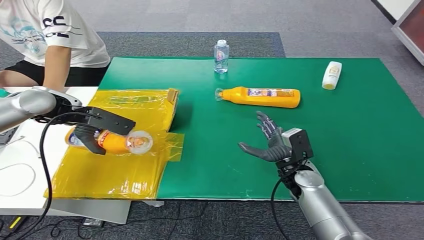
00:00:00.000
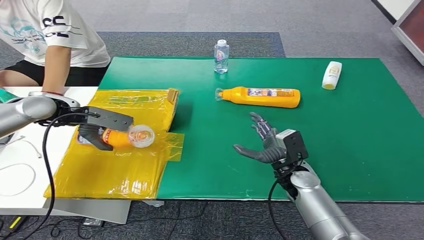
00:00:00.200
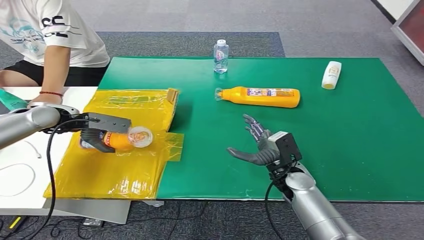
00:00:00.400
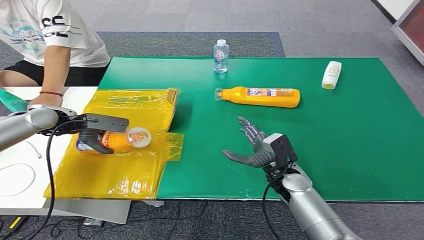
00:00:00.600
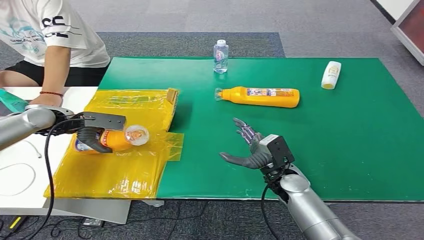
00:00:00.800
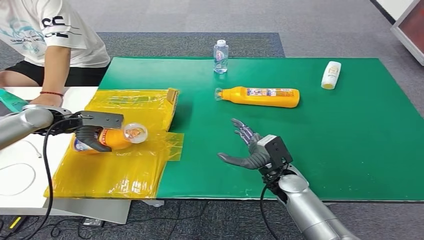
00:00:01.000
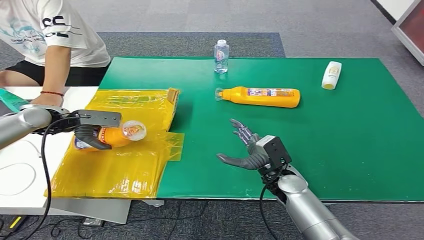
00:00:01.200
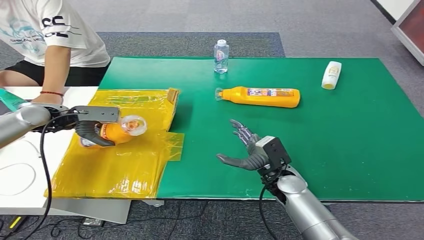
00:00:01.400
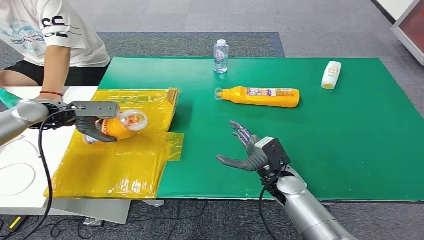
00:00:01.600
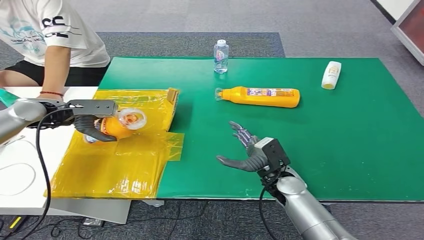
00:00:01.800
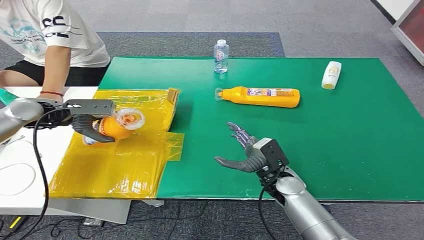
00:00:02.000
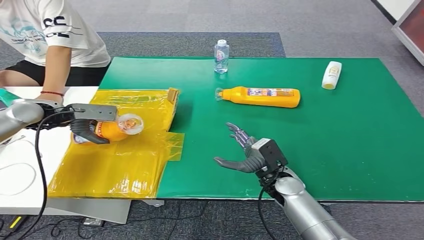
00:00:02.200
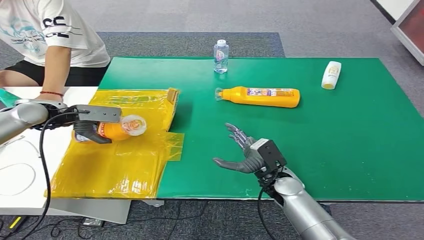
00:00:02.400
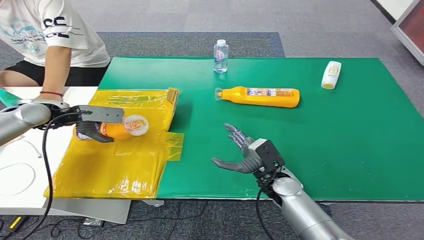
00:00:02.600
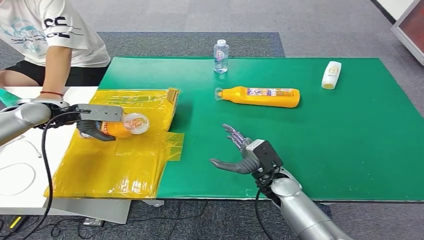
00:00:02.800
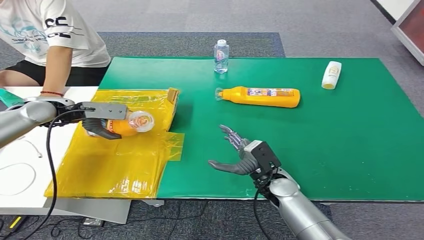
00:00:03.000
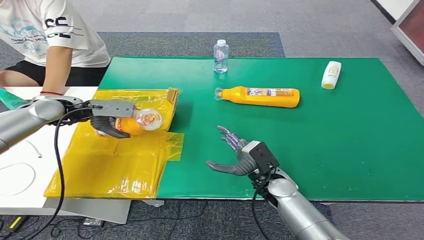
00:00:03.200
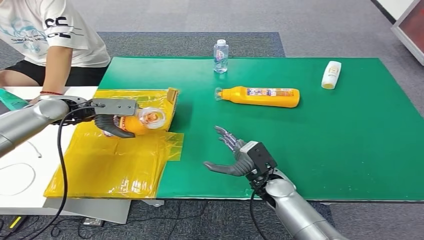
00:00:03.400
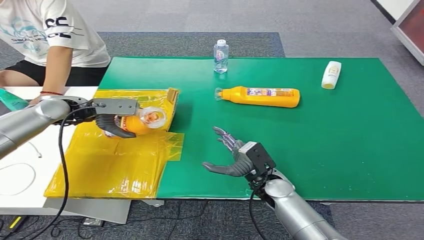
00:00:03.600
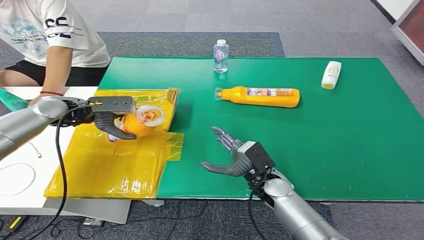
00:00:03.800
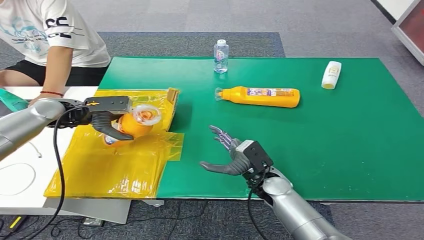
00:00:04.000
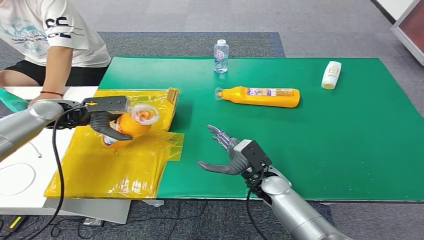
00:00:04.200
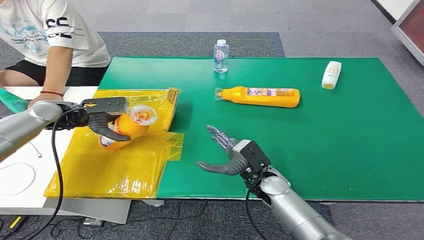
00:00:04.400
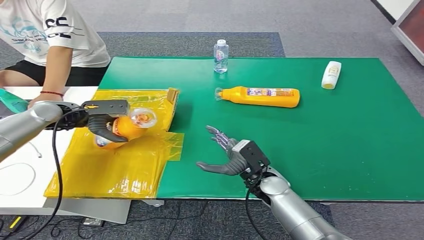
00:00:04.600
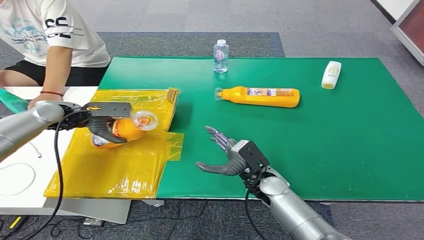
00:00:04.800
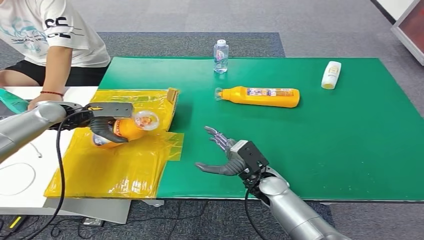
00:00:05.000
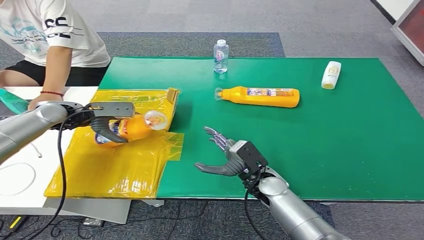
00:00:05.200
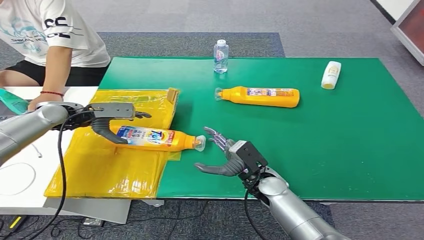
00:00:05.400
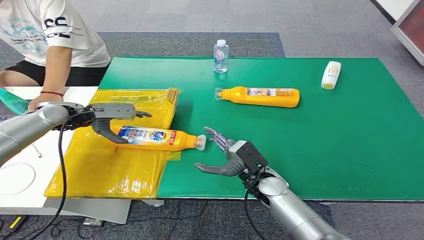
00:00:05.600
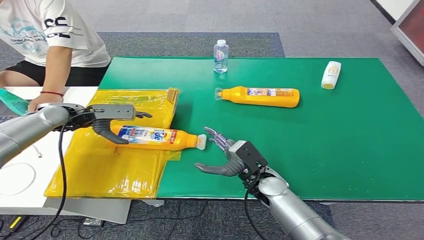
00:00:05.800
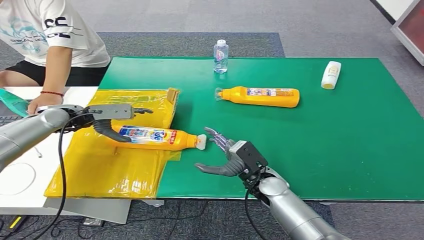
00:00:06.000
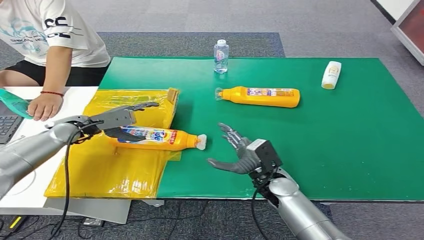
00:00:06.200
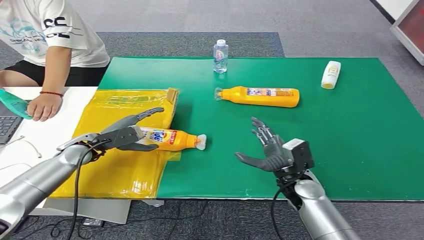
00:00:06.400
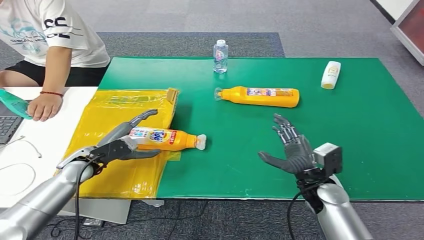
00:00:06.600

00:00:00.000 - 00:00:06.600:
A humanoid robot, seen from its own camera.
Step, 00:00:00.000 - 00:00:06.600: Turn the bottle to the front side.
00:00:00.000 - 00:00:01.600: The left hand goes approximately 10 cm downward and to the left.
00:00:01.600 - 00:00:05.000: There are only small adjustments of the hands.

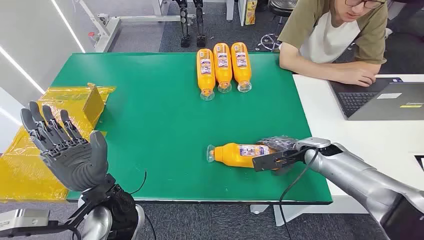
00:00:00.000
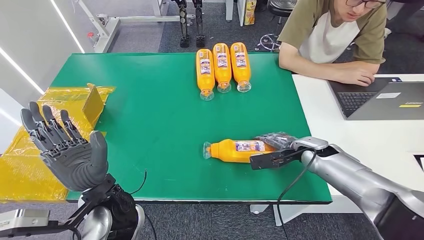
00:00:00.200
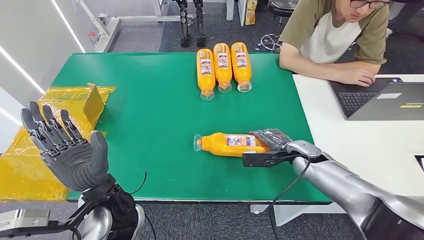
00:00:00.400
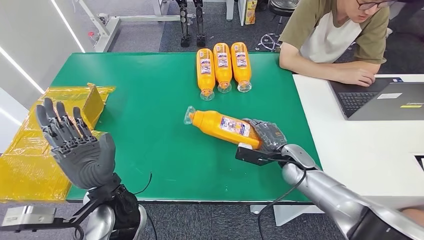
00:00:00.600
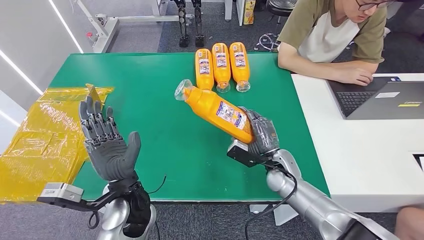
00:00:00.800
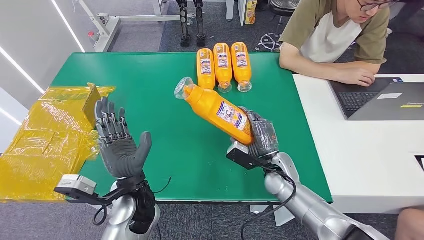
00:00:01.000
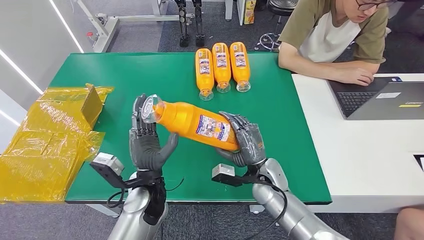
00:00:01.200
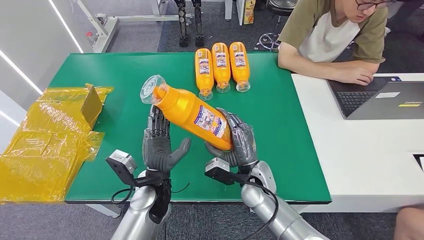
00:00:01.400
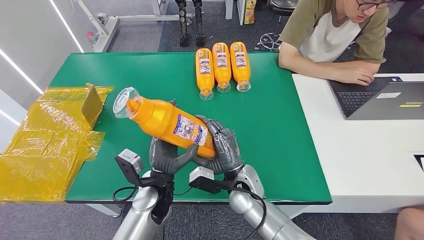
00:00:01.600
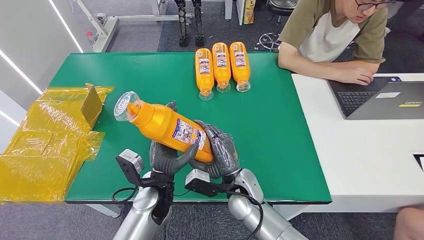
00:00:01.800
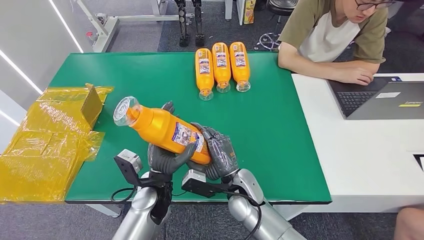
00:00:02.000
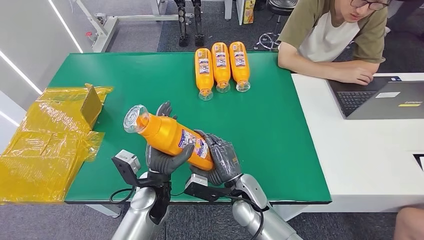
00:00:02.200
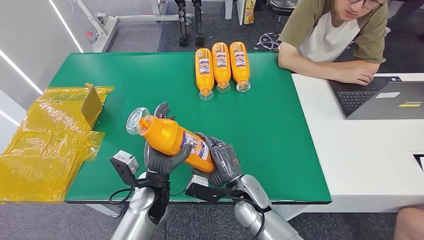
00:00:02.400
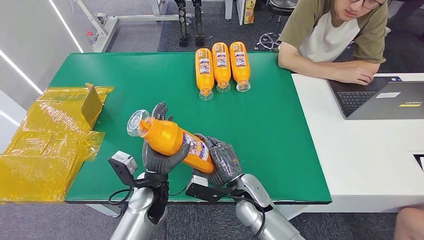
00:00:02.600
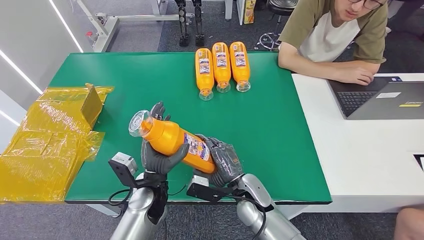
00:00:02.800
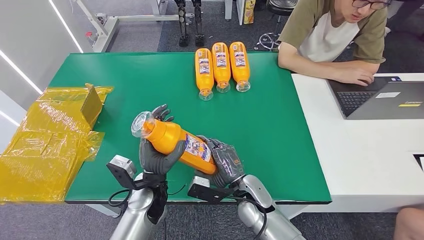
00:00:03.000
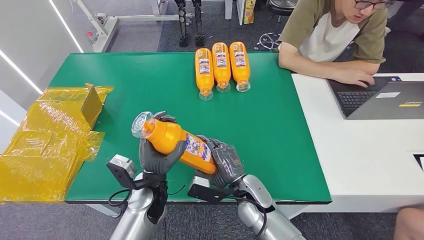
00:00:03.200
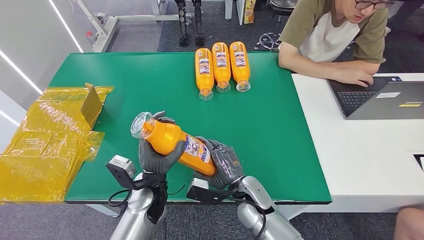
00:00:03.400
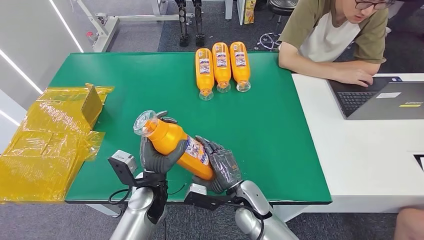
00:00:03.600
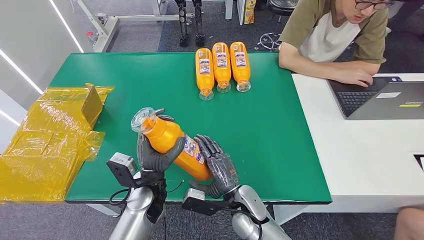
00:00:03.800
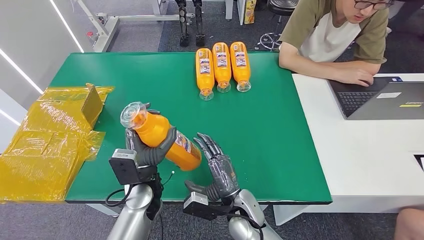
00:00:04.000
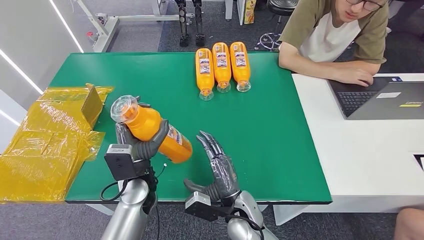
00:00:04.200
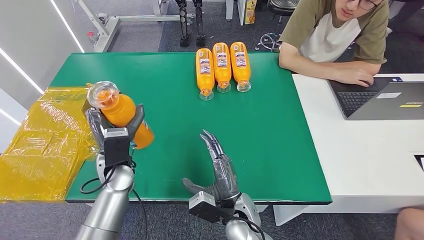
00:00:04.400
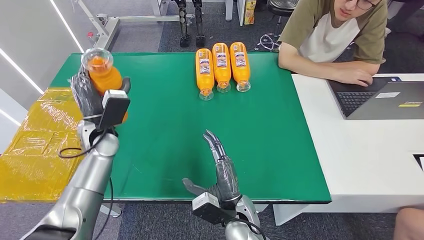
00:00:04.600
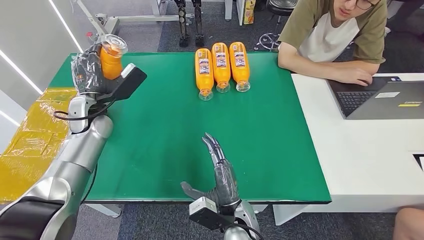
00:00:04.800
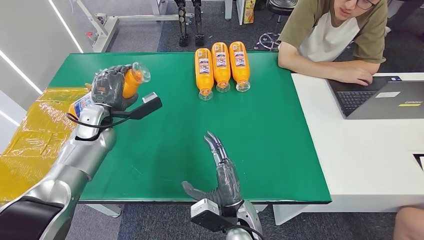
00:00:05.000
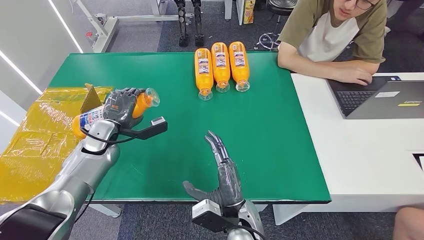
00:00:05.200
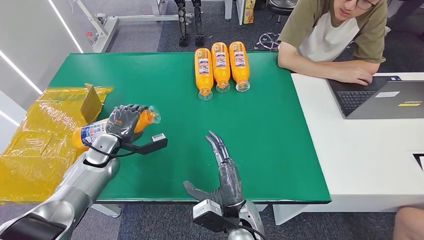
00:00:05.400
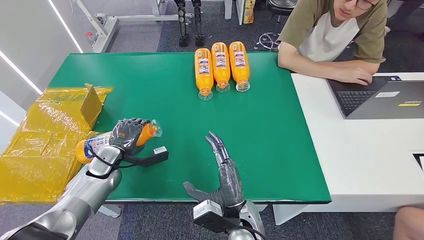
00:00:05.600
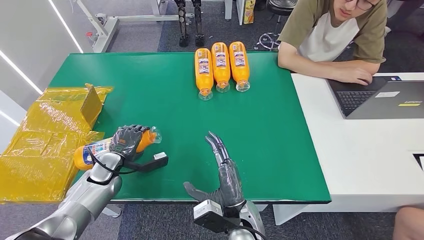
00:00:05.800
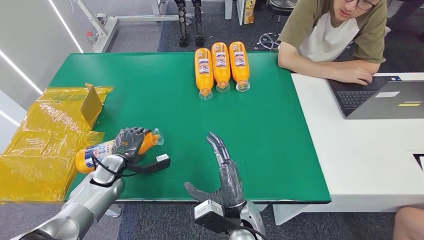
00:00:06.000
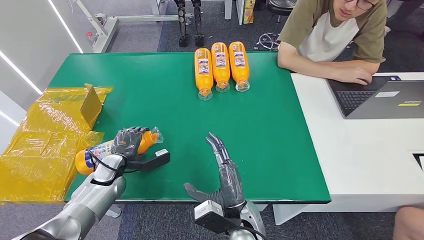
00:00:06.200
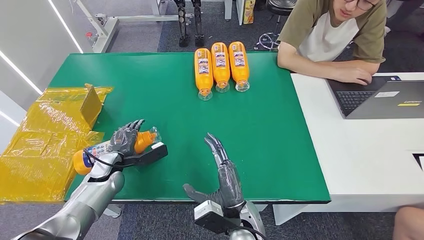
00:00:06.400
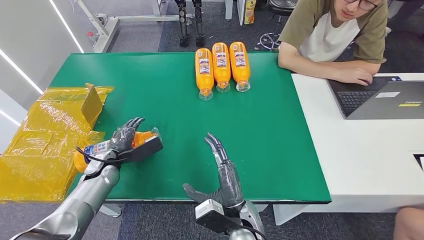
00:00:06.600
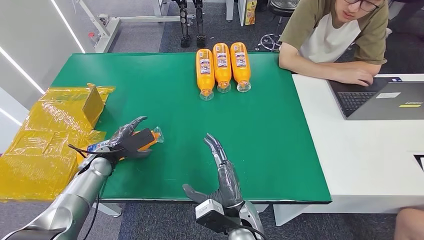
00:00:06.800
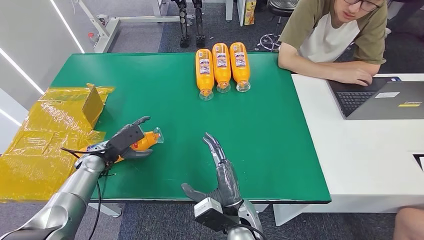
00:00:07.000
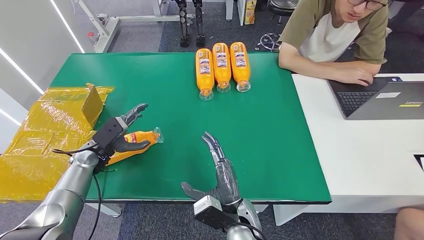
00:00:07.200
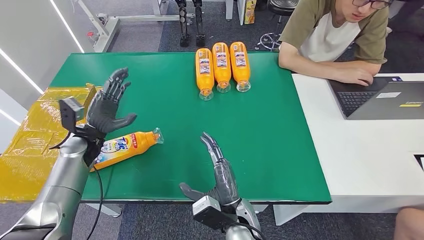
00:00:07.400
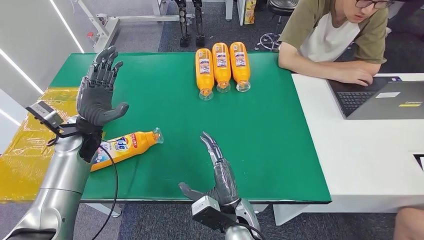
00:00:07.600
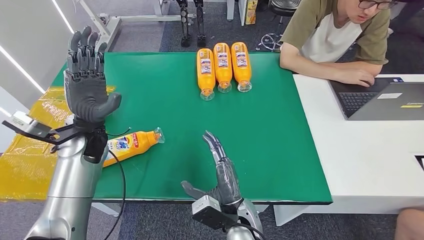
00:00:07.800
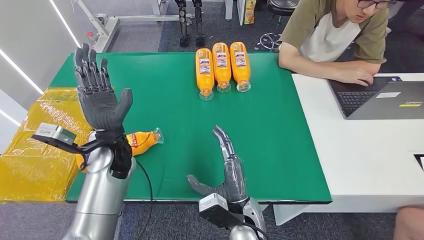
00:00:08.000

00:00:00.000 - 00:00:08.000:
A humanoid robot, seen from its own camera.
Step, 00:00:00.000 - 00:00:02.600: Pick up the bottle from the table.
Step, 00:00:02.800 - 00:00:07.800: Turn the bottle to the front side.
00:00:04.800 - 00:00:06.400: The left hand travels downward and backward by approximately 20 cm.
00:00:06.400 - 00:00:08.000: The left hand goes about 20 cm upward and to the right.
